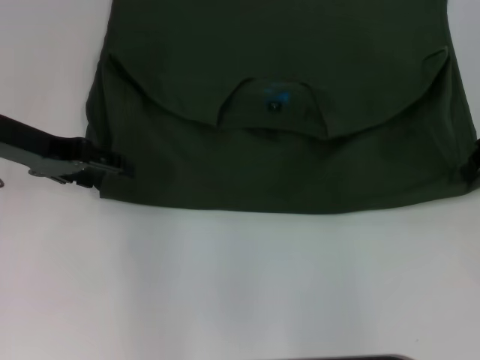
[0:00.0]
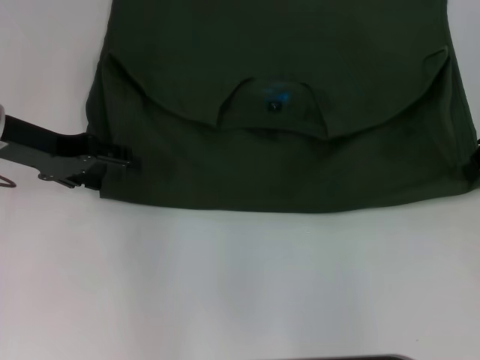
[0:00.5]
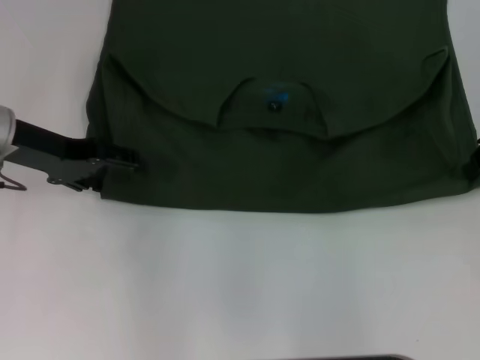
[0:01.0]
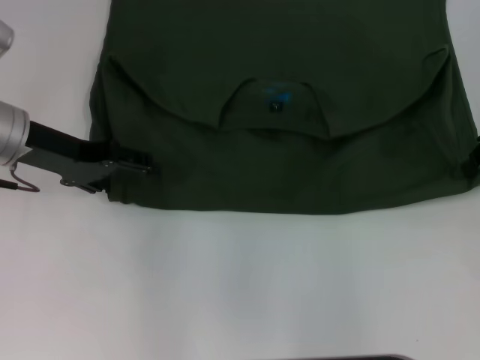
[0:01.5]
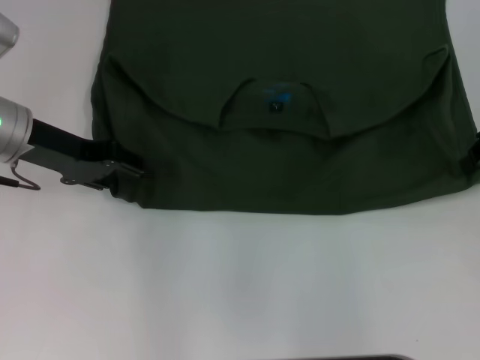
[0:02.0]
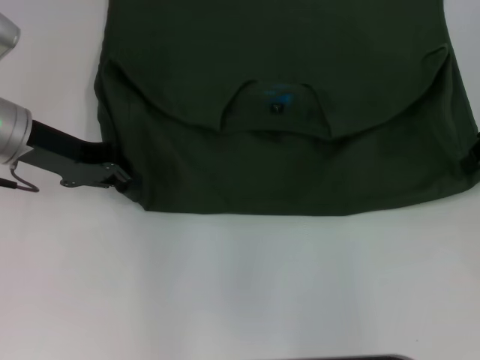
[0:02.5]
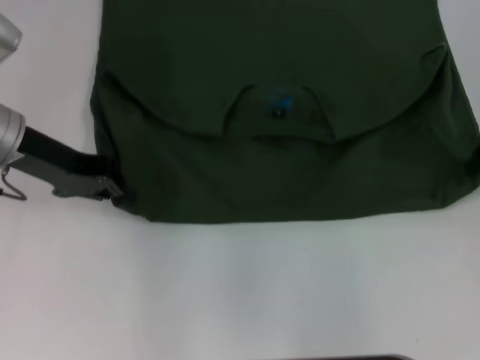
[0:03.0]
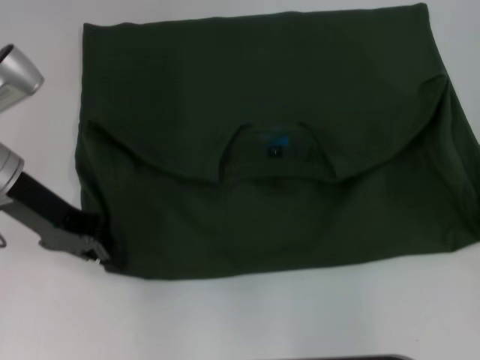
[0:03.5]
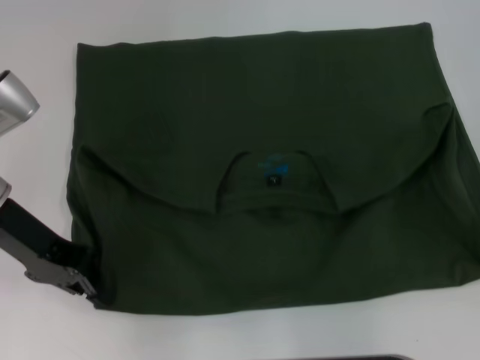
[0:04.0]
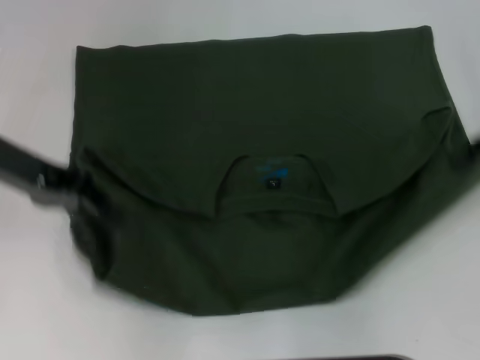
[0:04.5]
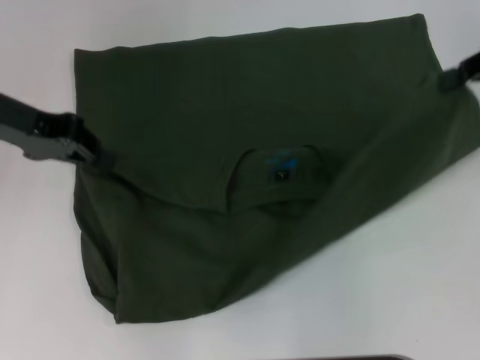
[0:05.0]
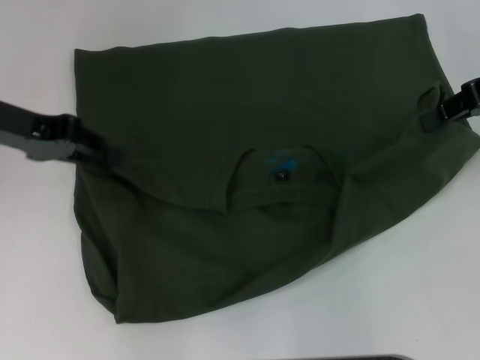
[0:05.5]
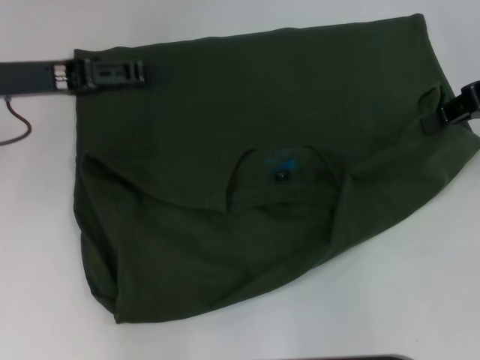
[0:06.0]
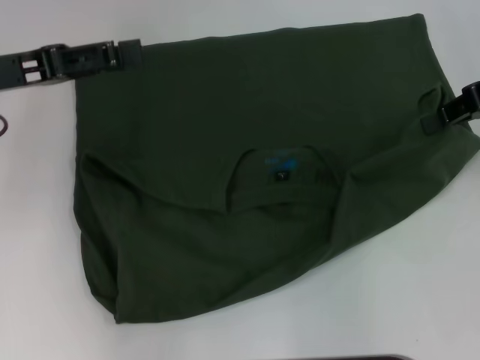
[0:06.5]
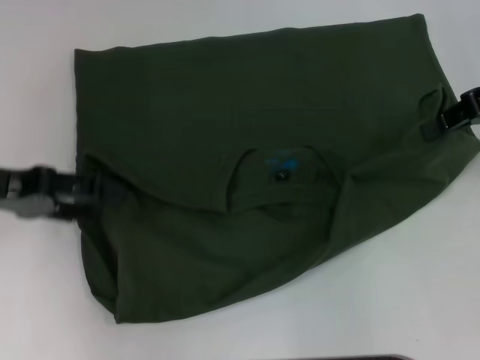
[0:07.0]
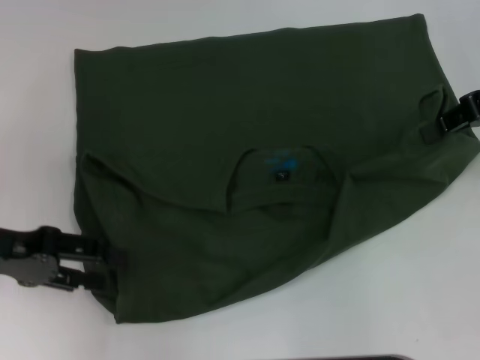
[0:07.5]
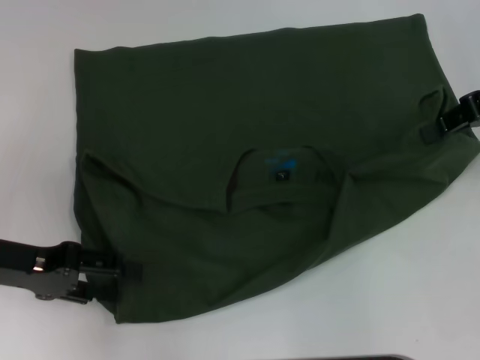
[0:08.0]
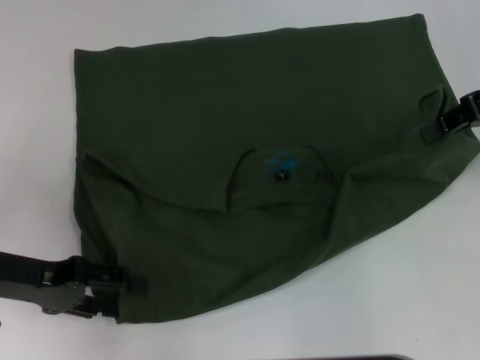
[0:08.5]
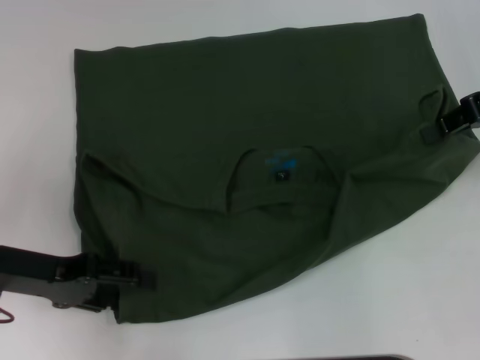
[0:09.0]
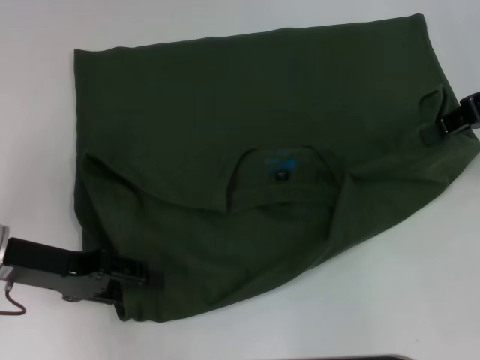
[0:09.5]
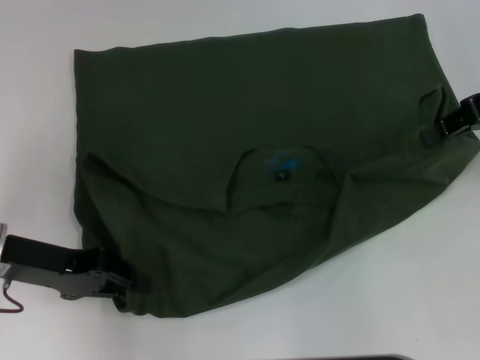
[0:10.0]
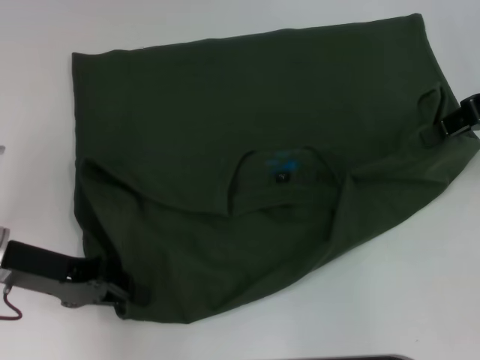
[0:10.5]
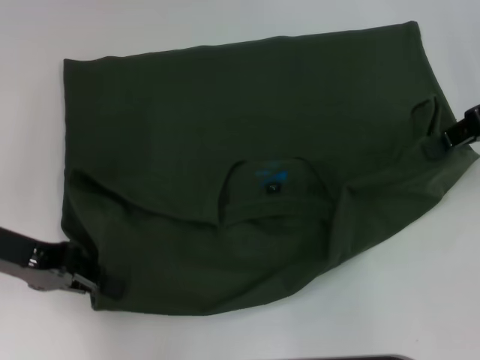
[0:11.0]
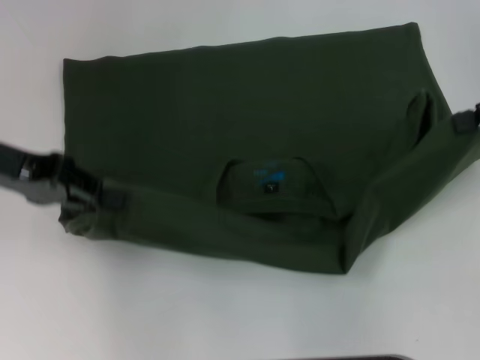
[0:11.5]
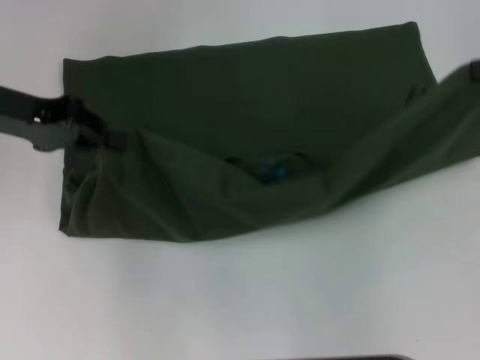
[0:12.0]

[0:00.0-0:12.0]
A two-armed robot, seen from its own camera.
Step, 0:00.0 to 0:11.0: Pull the clothes with your left hand.
Step, 0:00.0 to 0:11.0: Pull the clothes with your right hand.
0:00.0 to 0:02.0: The grippers make only small movements.
0:02.0 to 0:04.0: Both grippers travel together backward, some 5 cm. The left gripper closes its fingers.
0:04.0 to 0:06.0: The left gripper ends up some 5 cm from where it was, and opens its fingers; the right gripper goes some 5 cm forward.
0:06.0 to 0:08.0: The left gripper heads backward and downward, covering about 10 cm, and opens up.
0:08.0 to 0:10.0: The left gripper closes its fingers.
0:10.0 to 0:12.0: The right gripper is displaced to the right by roughly 5 cm. Meanwhile the left gripper is displaced upward and forward by about 15 cm, and closes up.

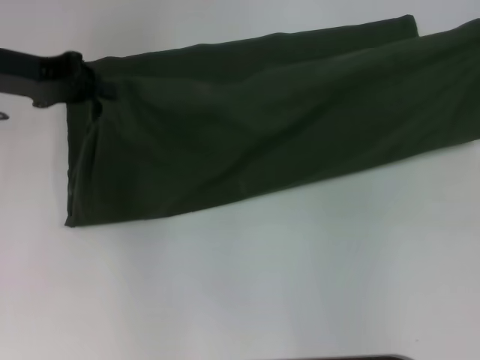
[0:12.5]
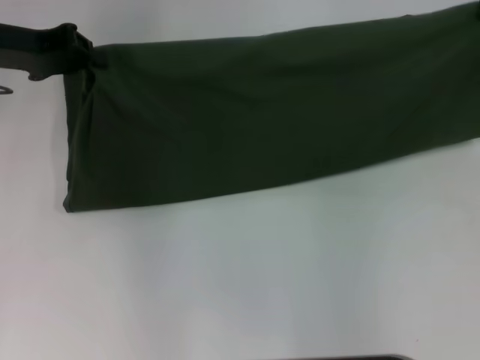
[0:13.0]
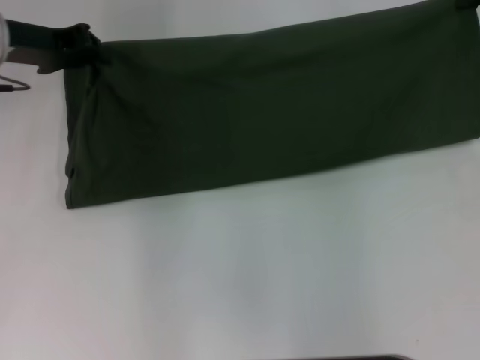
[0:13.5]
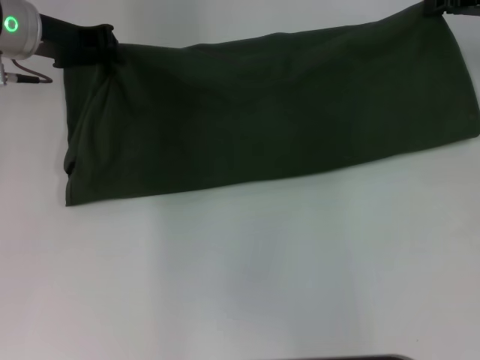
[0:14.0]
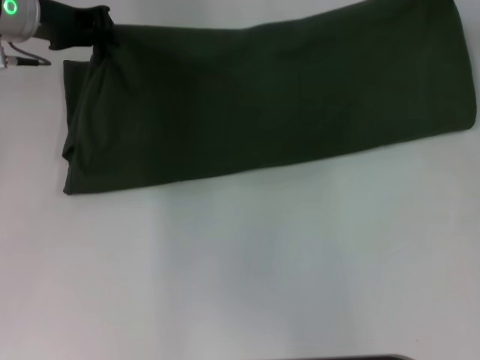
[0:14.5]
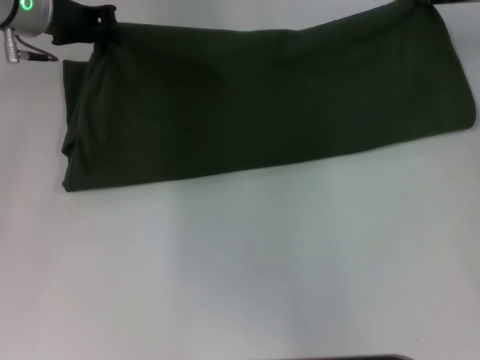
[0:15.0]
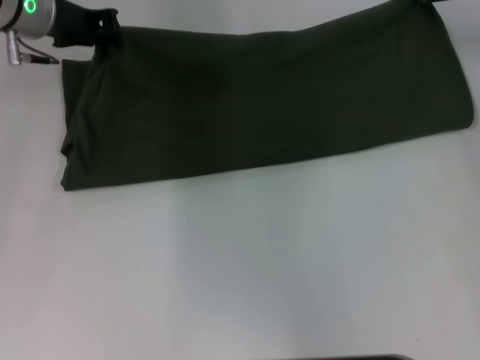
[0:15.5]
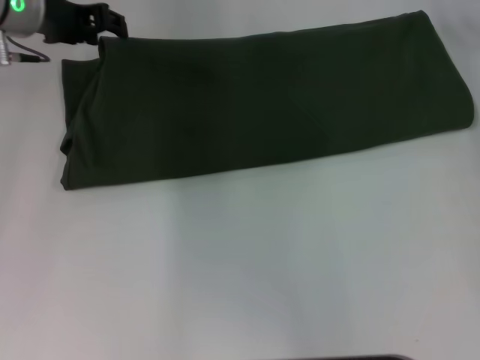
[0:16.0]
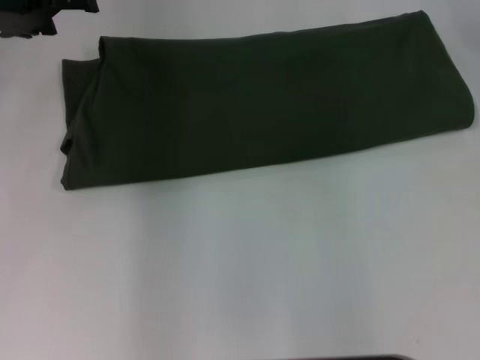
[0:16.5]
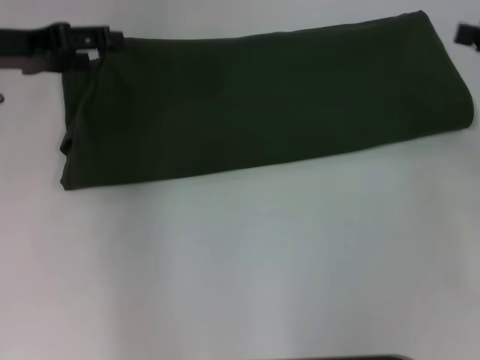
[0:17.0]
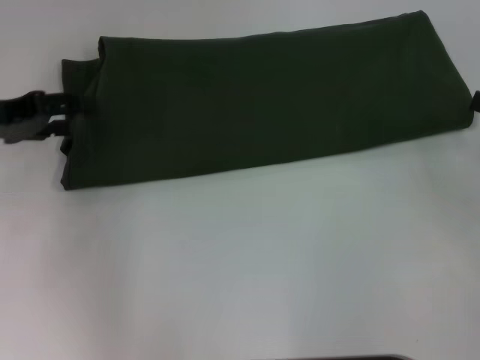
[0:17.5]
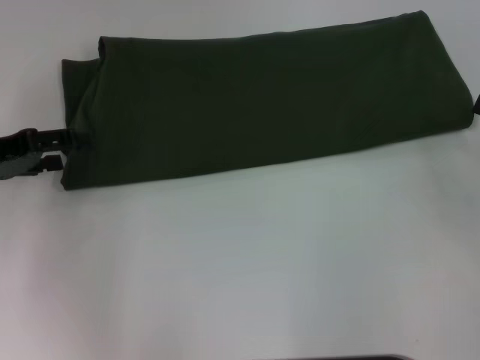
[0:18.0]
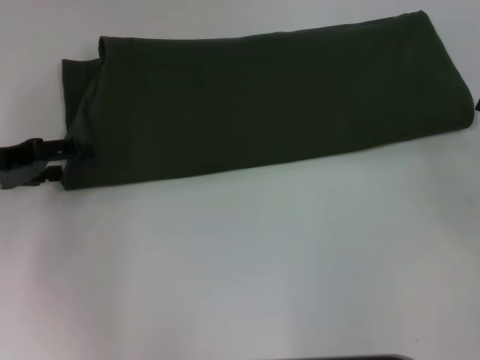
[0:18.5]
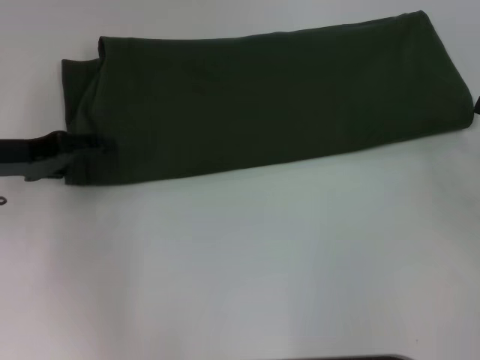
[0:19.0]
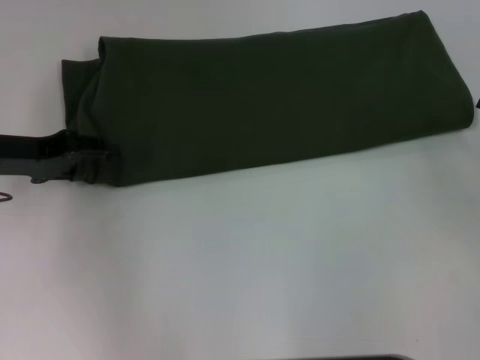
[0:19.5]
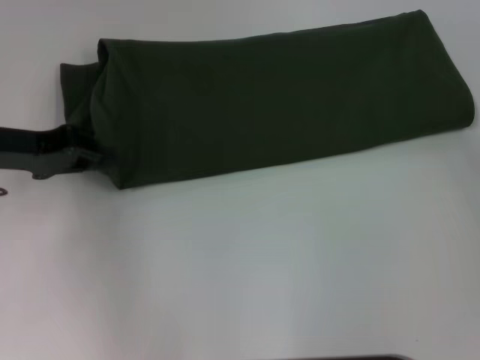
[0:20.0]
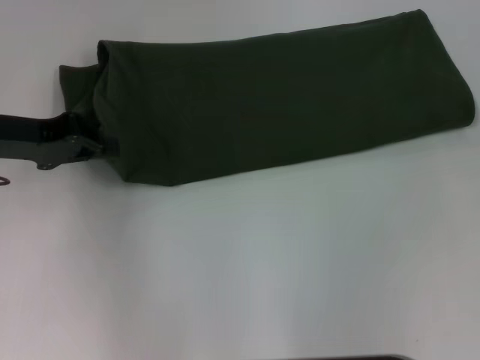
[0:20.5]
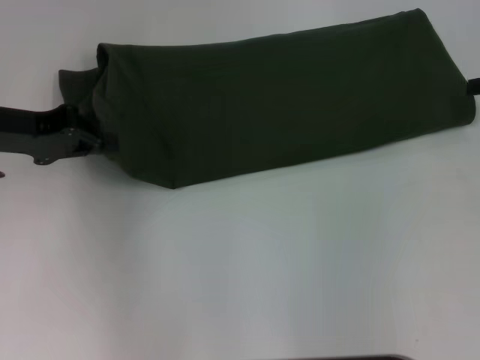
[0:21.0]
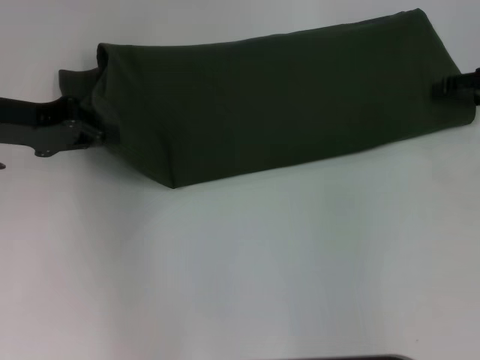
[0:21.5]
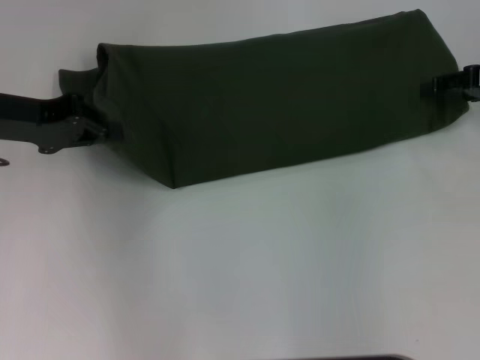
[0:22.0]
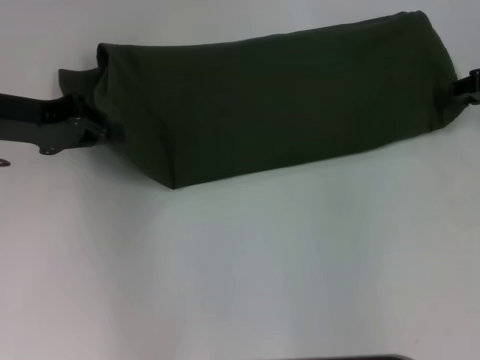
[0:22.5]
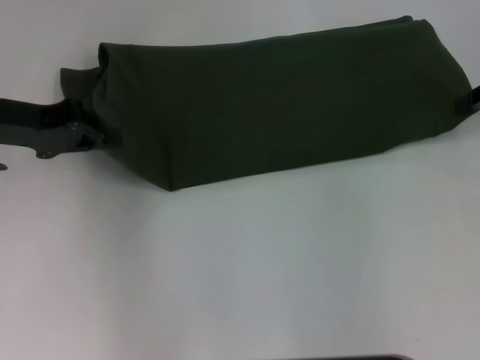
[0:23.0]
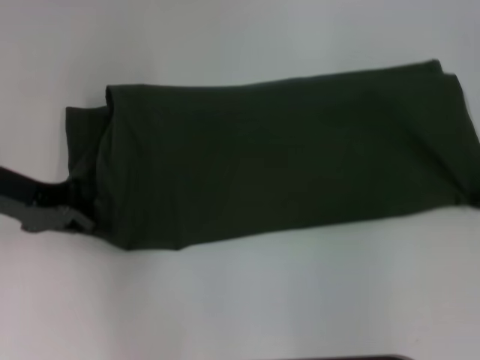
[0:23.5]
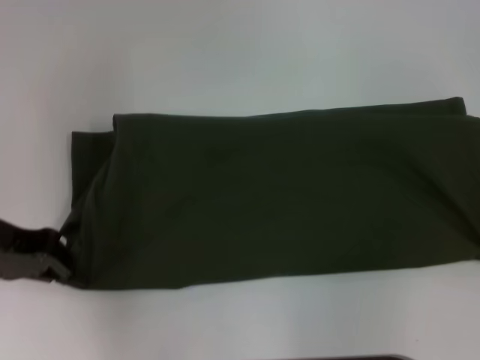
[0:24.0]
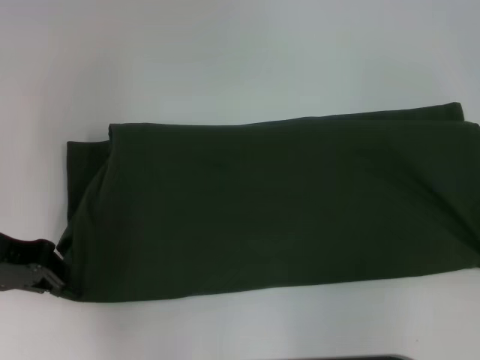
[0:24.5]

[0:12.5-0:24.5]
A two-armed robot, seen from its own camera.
Step, 0:12.5 to 0:16.0: Fold the clothes with your left hand.
Step, 0:12.5 to 0:16.0: Fold the clothes with your right hand.
0:12.5 to 0:14.5: The right gripper travels forward and to the left by roughly 10 cm. Meanwhile the left gripper heads forward and to the right, covering some 10 cm.
0:14.5 to 0:16.5: The right gripper opens. The left gripper changes place by approximately 5 cm, and opens up.
0:16.5 to 0:18.5: The right gripper is displaced backward and downward by about 20 cm. The left gripper moves backward, downward and to the left, about 15 cm.
0:18.5 to 0:20.5: The right gripper is displaced forward and upward by roughly 10 cm. Meanwhile the left gripper changes place by approximately 5 cm, and closes its fingers.
0:20.5 to 0:22.5: The right gripper travels to the left by about 5 cm, and closes.
0:22.5 to 0:24.5: The two grippers go about 10 cm backward. The right gripper closes.

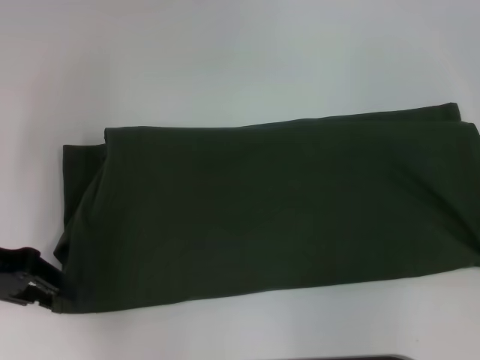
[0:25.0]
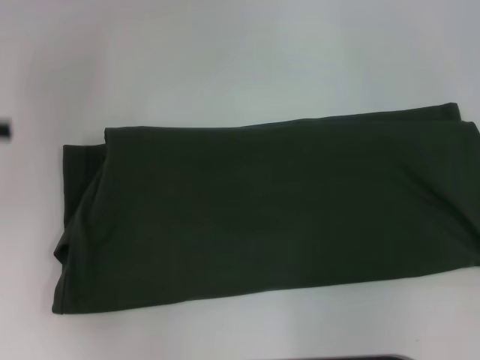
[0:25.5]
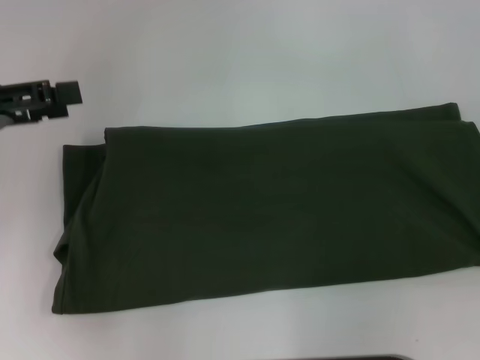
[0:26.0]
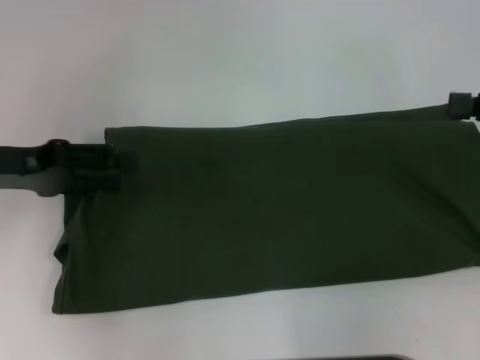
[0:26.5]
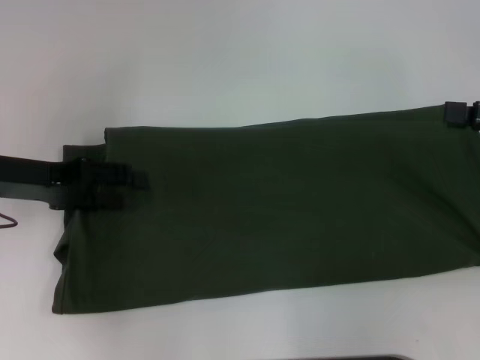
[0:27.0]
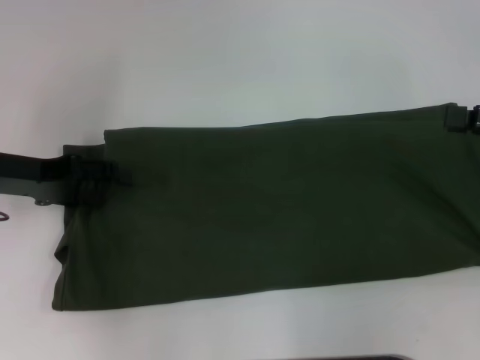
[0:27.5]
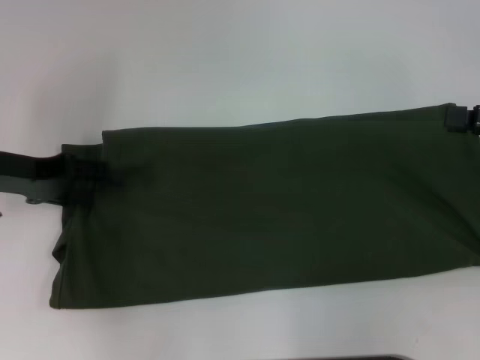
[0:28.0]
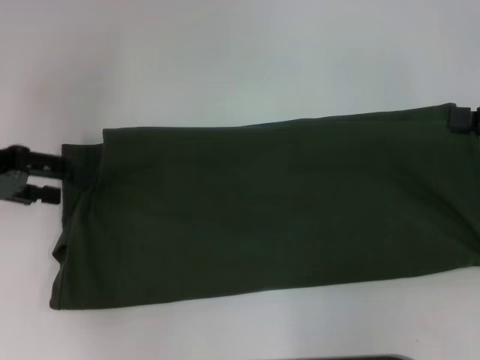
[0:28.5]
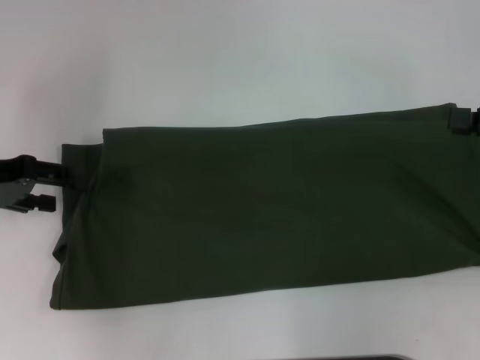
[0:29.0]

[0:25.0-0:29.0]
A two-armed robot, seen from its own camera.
0:25.0 to 0:27.0: The left gripper travels to the left and back again, about 5 cm each way, and opens up.
0:27.0 to 0:29.0: The grippers move only a little.
